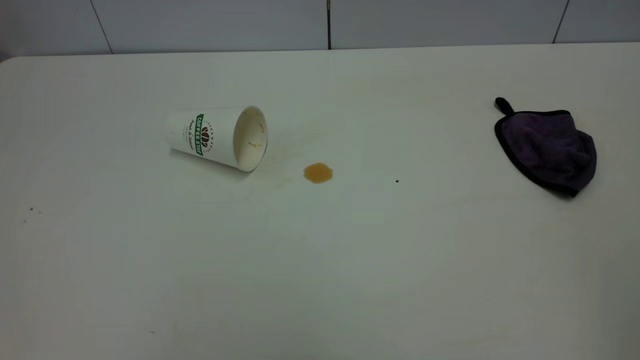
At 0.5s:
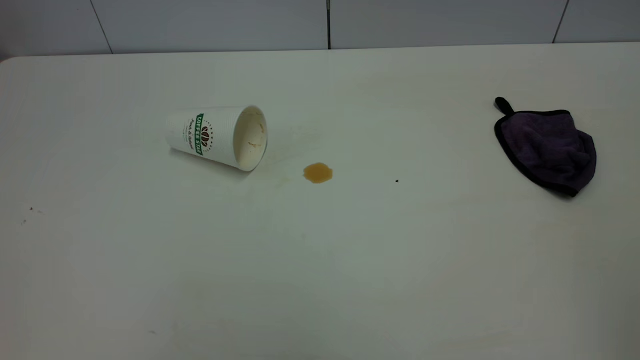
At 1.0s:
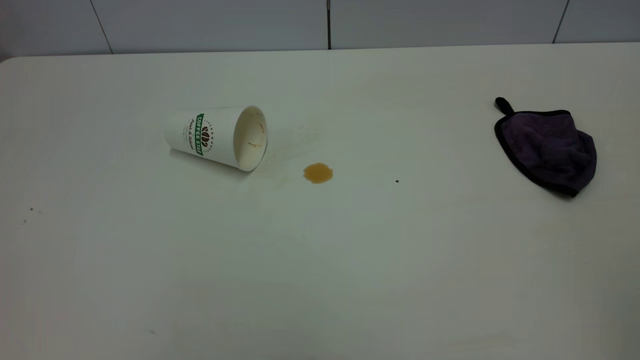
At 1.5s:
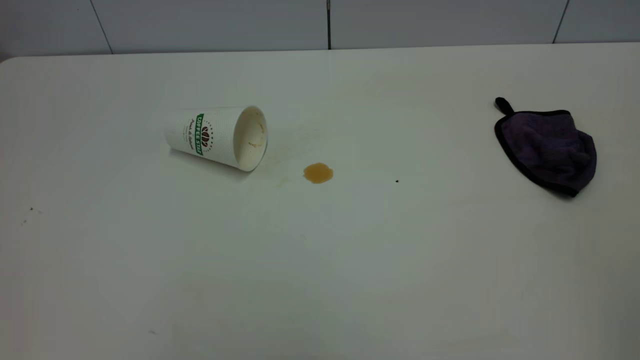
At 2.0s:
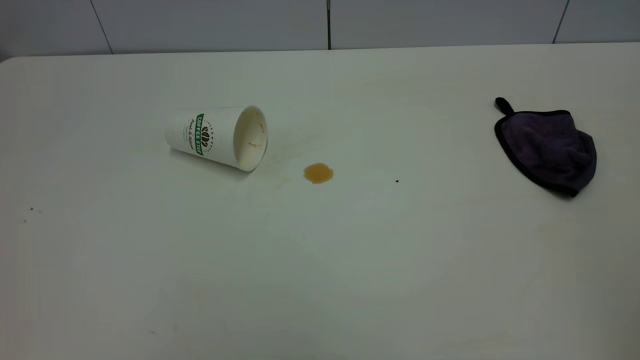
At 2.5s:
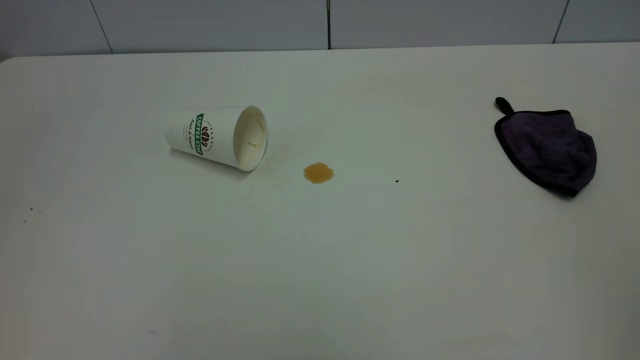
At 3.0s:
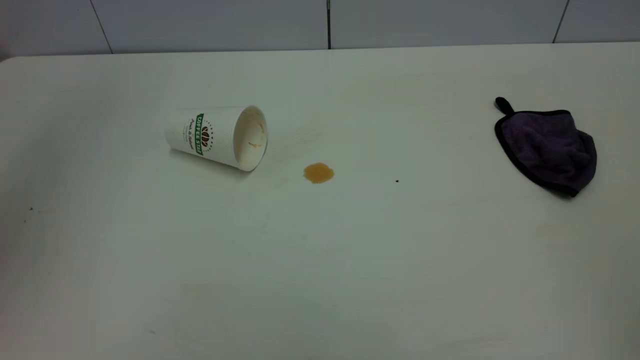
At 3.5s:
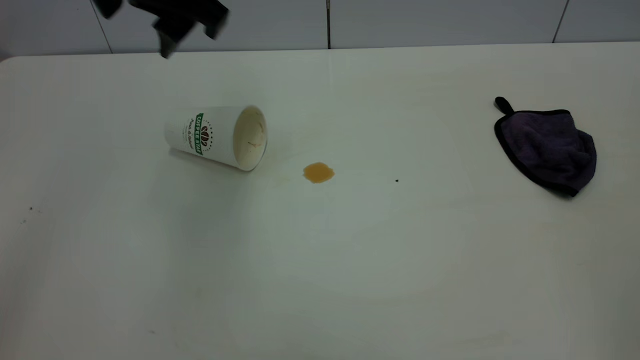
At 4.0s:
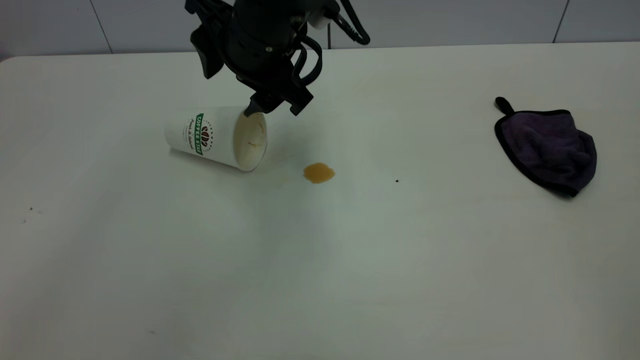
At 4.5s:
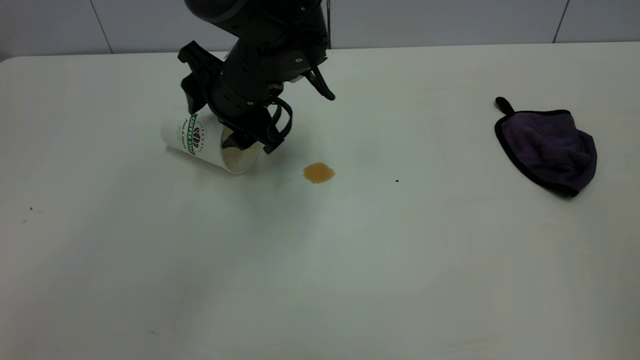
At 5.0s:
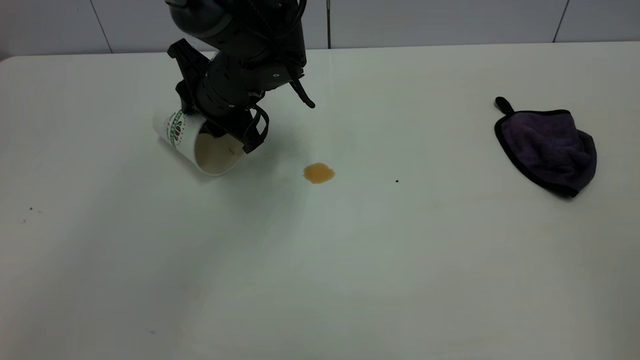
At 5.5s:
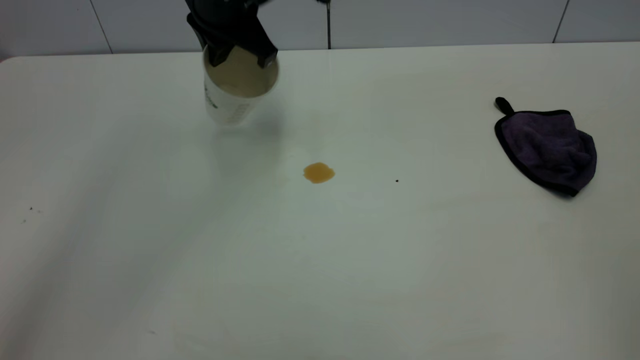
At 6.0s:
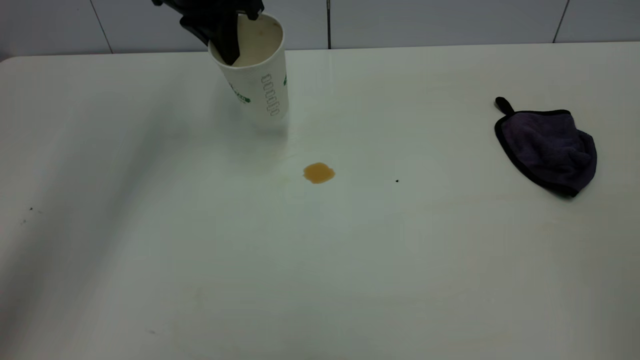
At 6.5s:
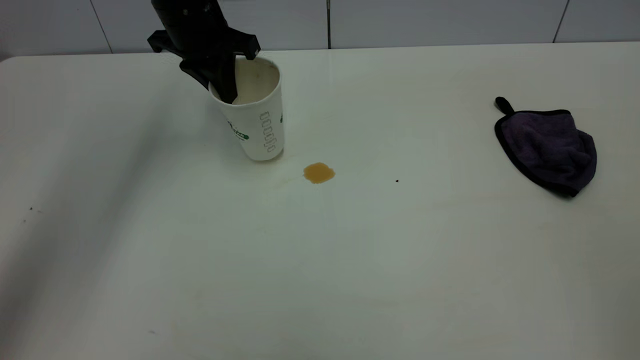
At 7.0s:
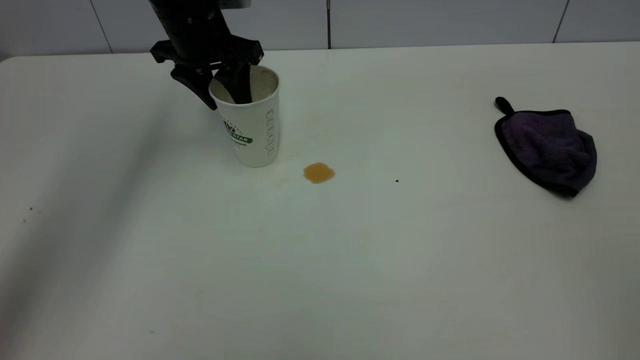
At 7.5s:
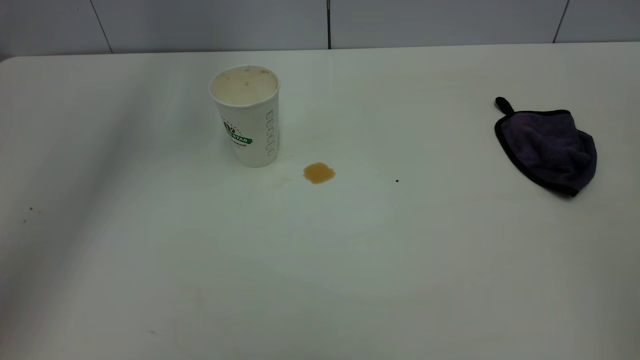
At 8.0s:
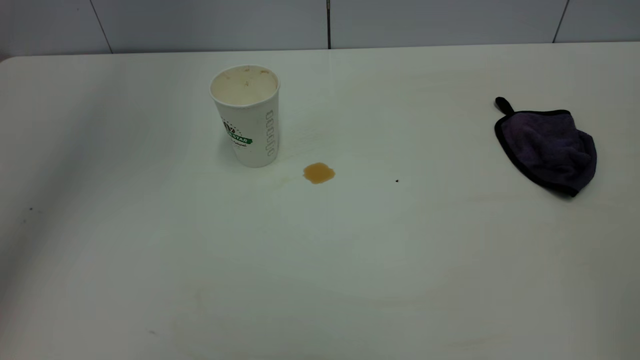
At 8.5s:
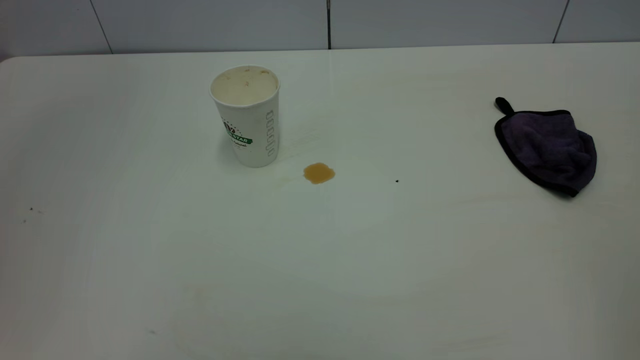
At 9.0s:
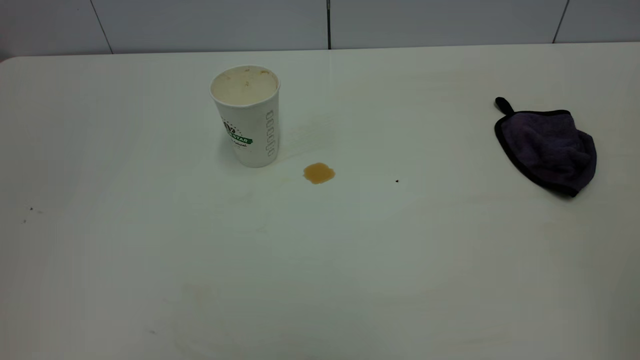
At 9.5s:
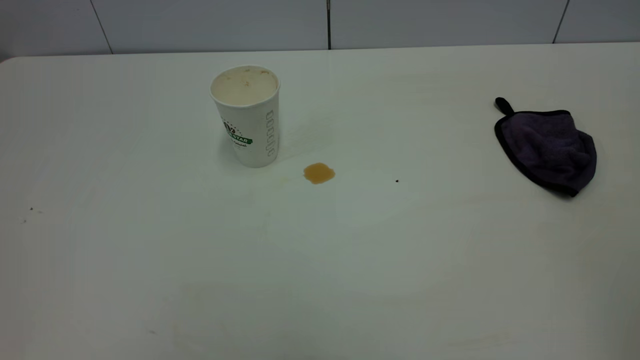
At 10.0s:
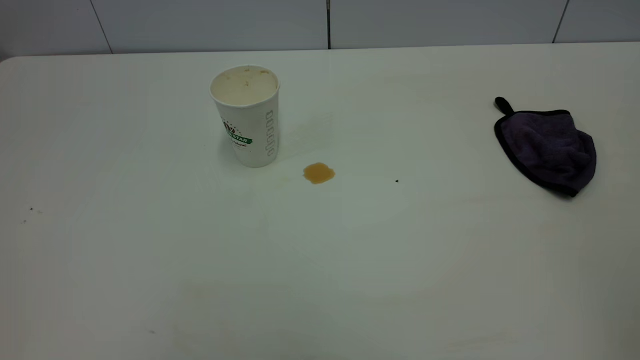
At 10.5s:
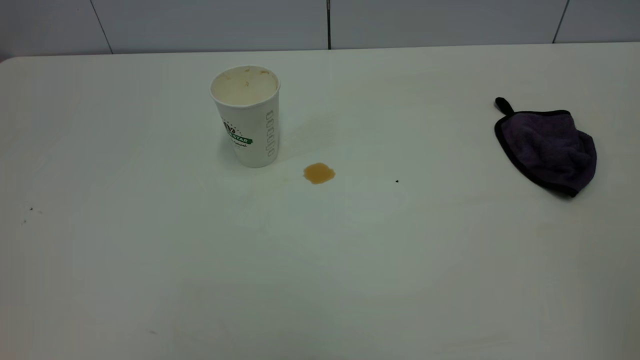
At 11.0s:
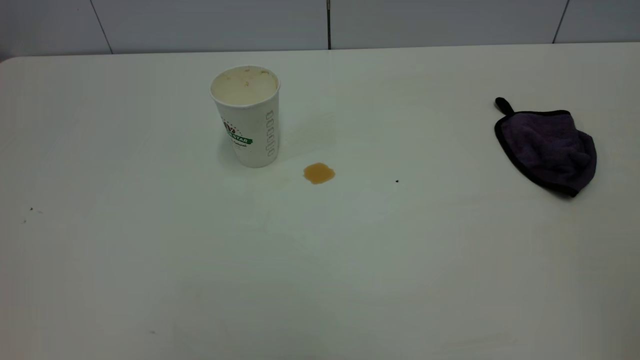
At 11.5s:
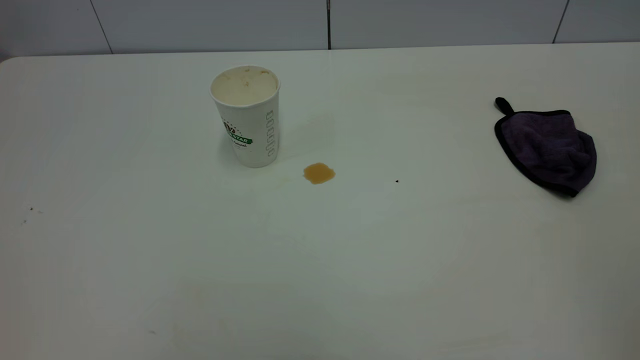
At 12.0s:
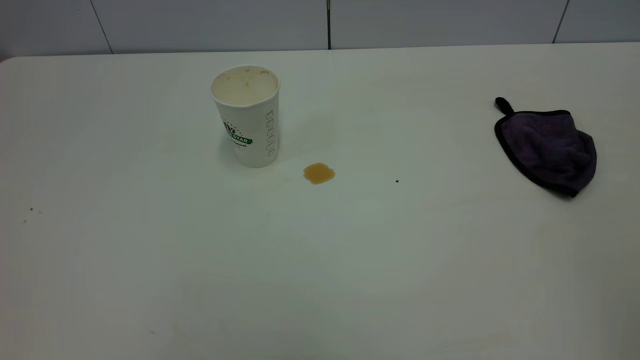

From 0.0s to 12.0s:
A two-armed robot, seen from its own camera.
Task of the whole recording: the left gripper pick up the fallen cup and place it upright, the right gripper grasp the purple rag and wipe the tea stain on the table, the right gripper put the purple rag back in its original position.
Step, from 0.0s to 7.0s: Stand the paper cup upright.
From 0.0s to 2.0s: Neither gripper changes place.
From 2.0s to 4.0s: The left gripper goes approximately 50 cm forward, to the right and downward.
From 4.0s to 6.0s: The left gripper goes about 15 cm forward and to the left, moves about 10 cm downward and comes back, and closes its fingers.
From 6.0s to 8.0s: The left gripper heads upward and backward, covering approximately 30 cm, and opens.
From 8.0s to 10.0s: The left gripper is displaced backward by some 40 cm.
From 10.0s to 12.0s: Both grippers stay about where they are.

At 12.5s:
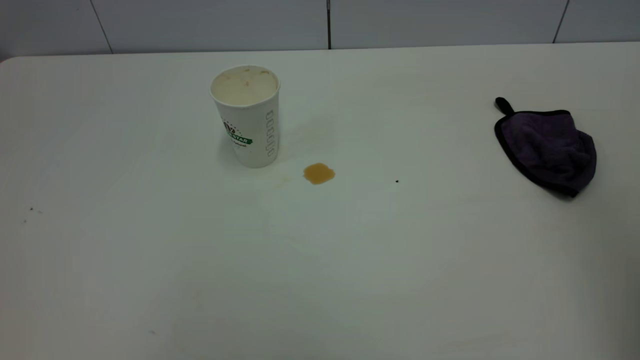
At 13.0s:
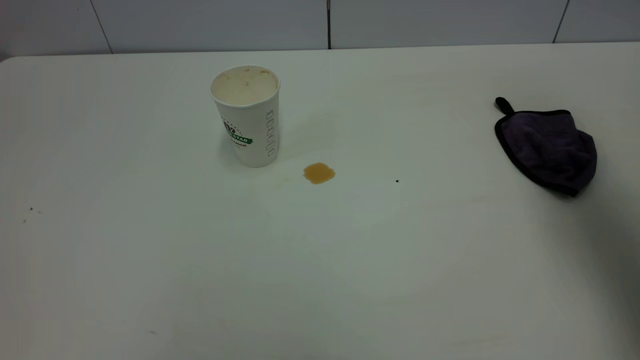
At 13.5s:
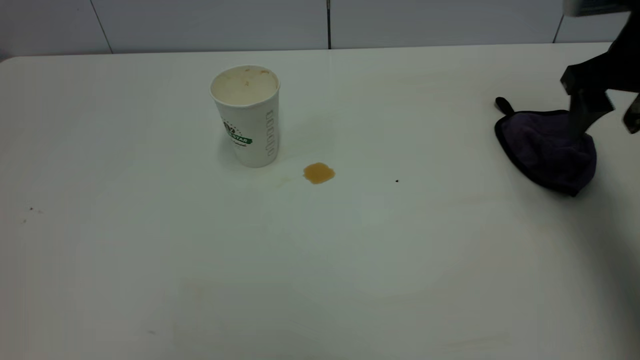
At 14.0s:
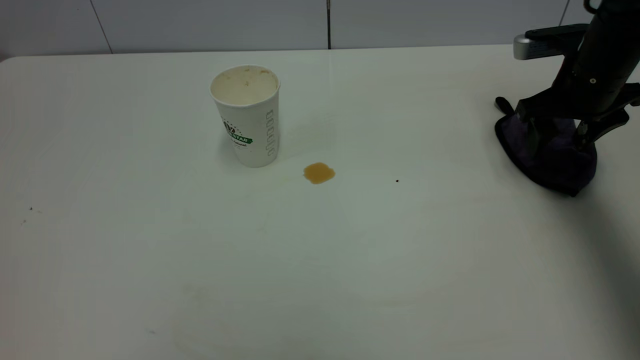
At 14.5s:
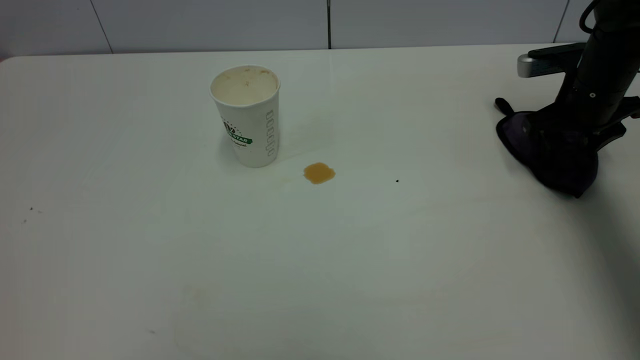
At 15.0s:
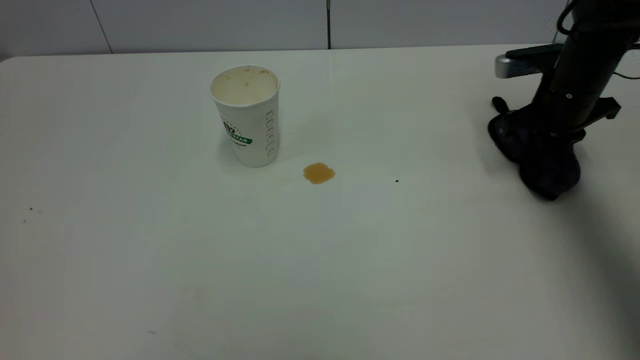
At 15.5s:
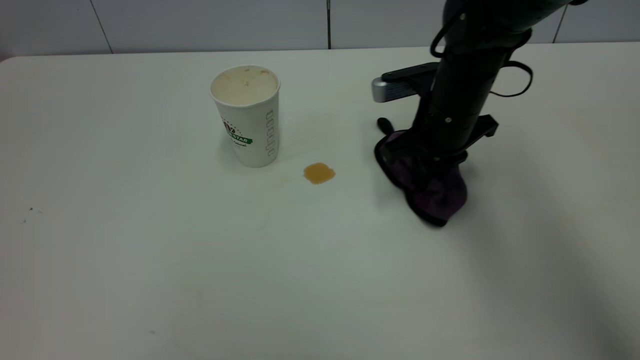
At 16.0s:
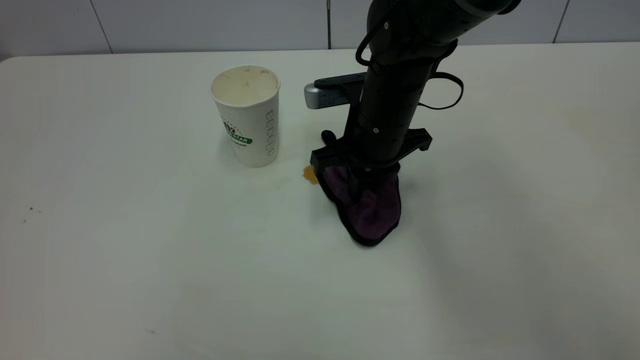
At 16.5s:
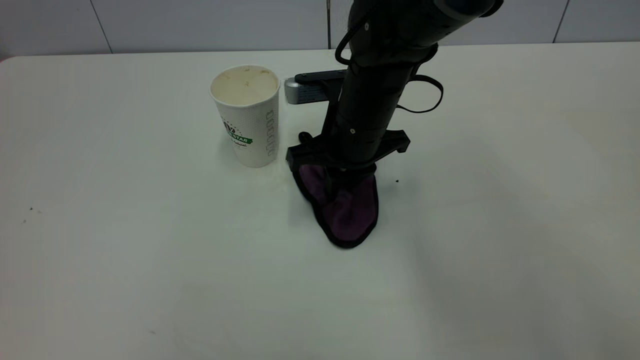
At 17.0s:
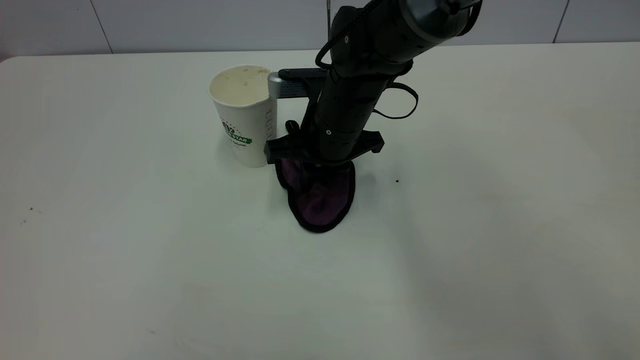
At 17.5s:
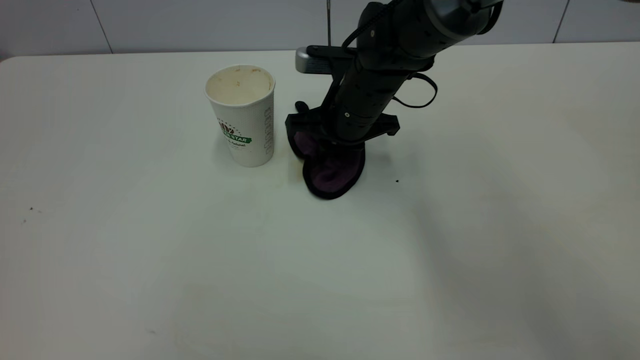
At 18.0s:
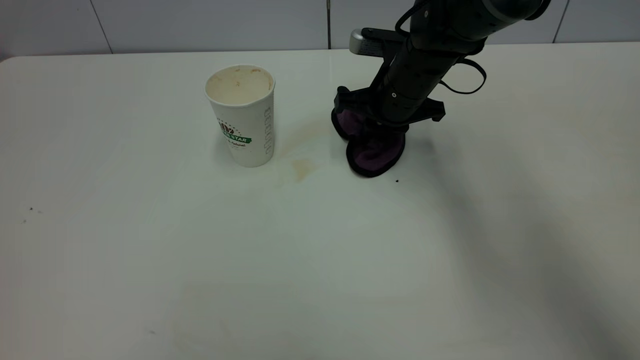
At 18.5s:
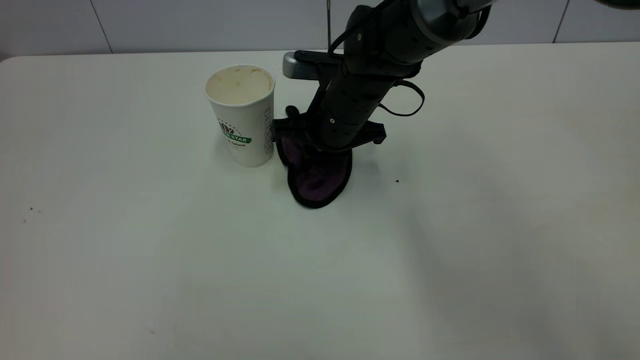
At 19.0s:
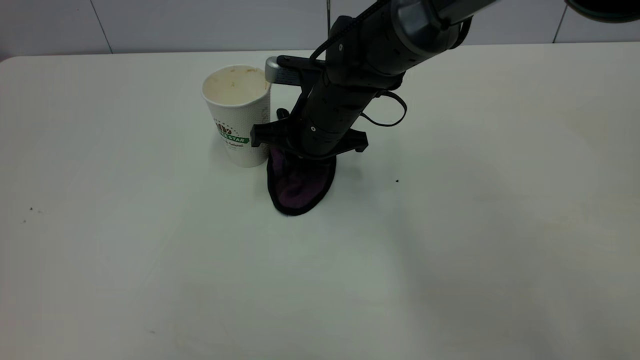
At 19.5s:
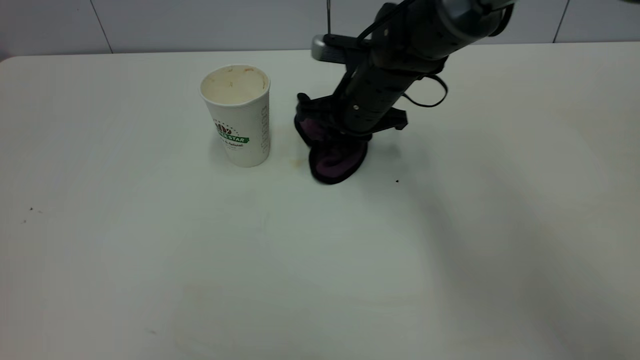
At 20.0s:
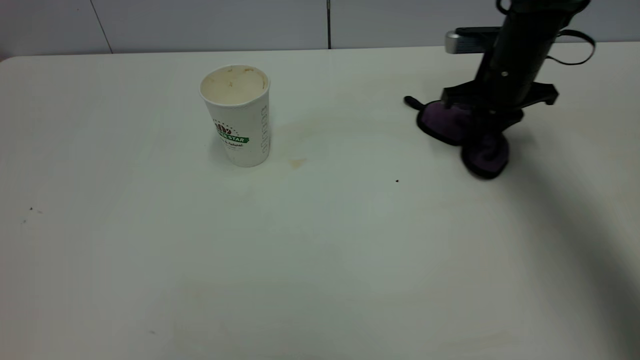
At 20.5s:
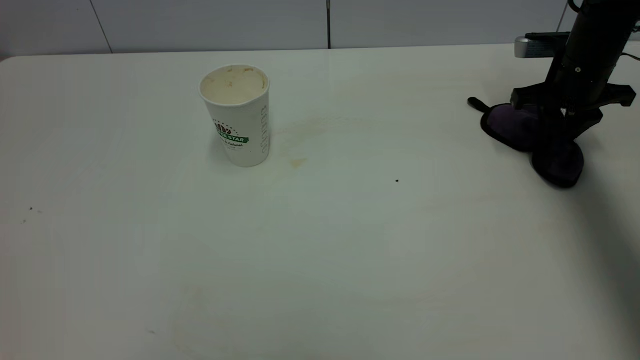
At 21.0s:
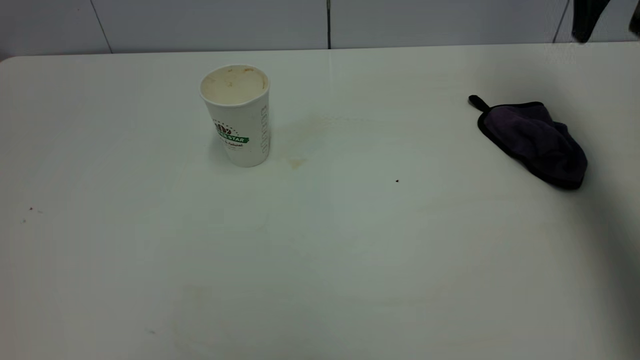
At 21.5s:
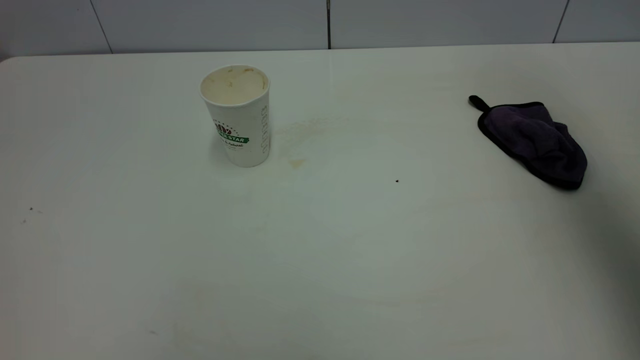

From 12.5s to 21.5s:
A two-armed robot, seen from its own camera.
Task of the whole recording: the left gripper pick up the fallen cup and place it upright, the right gripper grasp the purple rag and wipe the tea stain on the table, the right gripper put the purple rag back in its original position.
Step, from 12.5s to 20.5s: Wipe the stains off the table with a rag.
From 12.5s to 14.5s: The right gripper goes roughly 50 cm forward and downward.
From 14.5s to 17.0s: The right gripper heads to the left, covering some 30 cm, and closes its fingers.
From 17.0s to 19.5s: The right gripper goes left and right, roughly 10 cm each way, reversing 2 times.
From 19.5s to 21.5s: The right gripper is displaced upward, to the right and backward by some 50 cm, and opens up.
